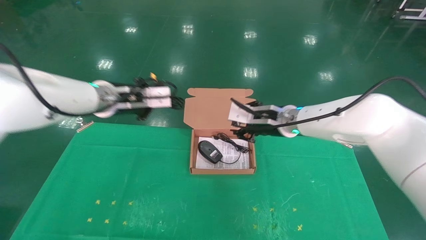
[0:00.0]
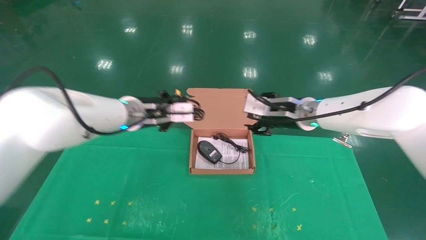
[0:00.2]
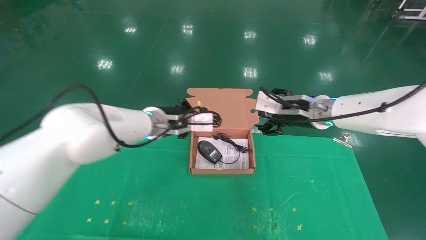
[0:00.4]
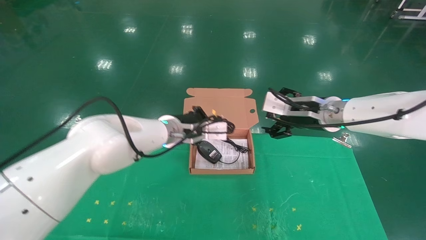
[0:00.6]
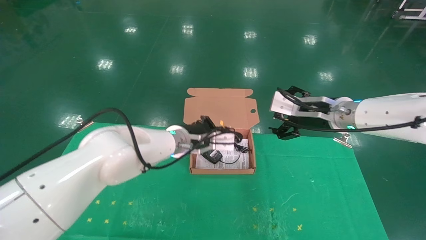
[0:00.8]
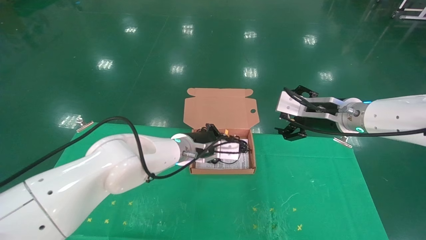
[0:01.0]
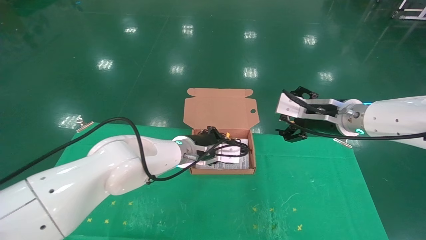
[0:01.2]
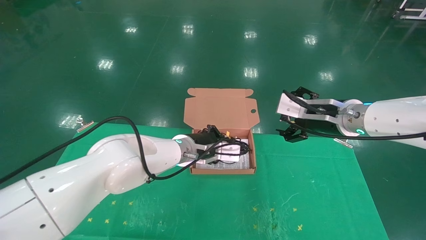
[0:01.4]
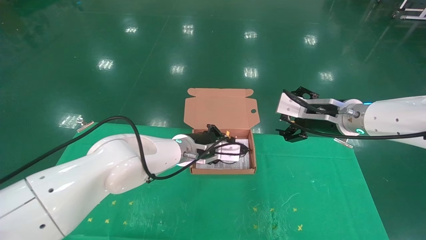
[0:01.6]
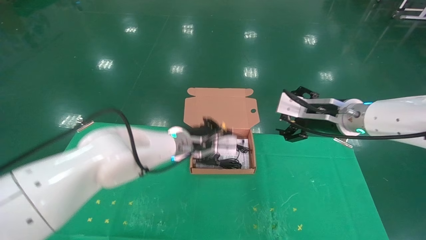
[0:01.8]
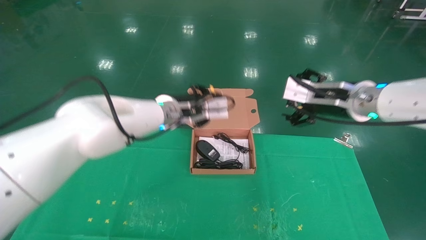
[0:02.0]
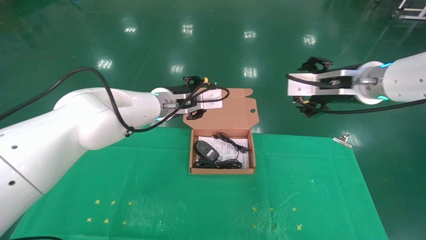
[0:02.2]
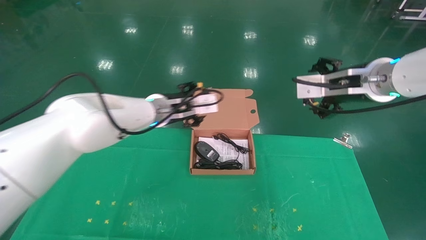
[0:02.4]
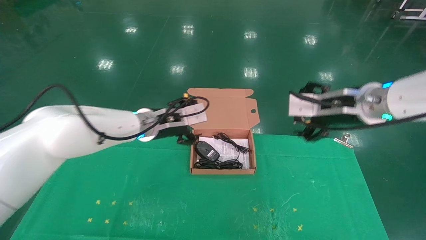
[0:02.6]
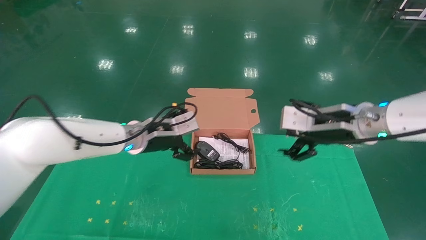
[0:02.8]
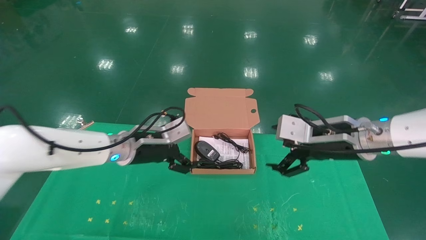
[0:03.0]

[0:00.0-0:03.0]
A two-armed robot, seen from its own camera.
Task of the whole recording: grasp data cable left put into box grasp mouse right put into box.
0:00.0 to 0:01.6: The right gripper is displaced to the right and backward by some 10 cm, and opens; the left gripper travels to the right and downward by some 15 cm.
0:01.6 to 0:03.0: The left gripper is displaced to the left by about 10 cm, and opens its fingers. Meanwhile the right gripper travels backward by about 5 cm.
